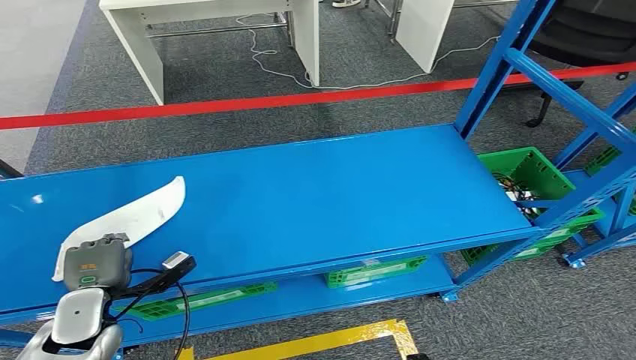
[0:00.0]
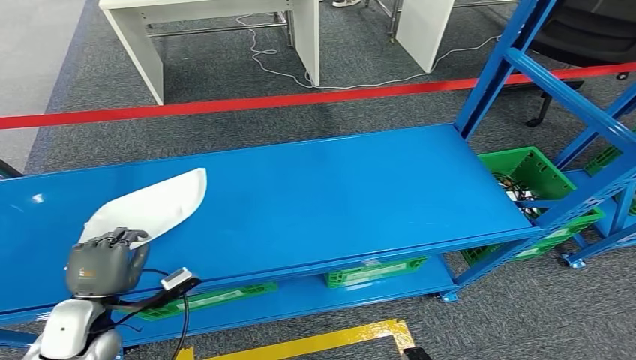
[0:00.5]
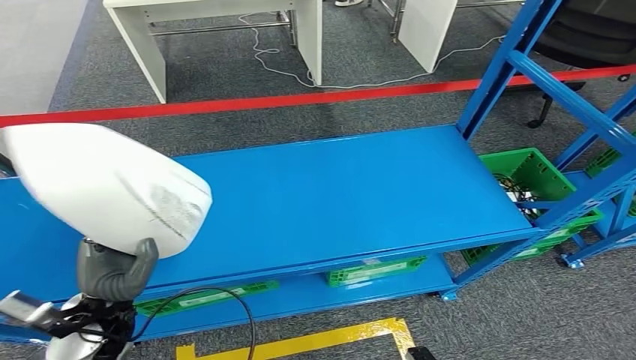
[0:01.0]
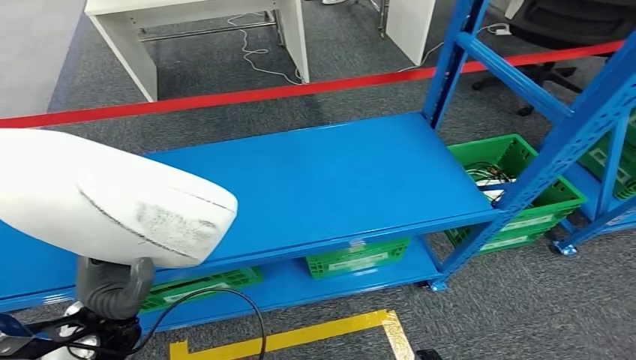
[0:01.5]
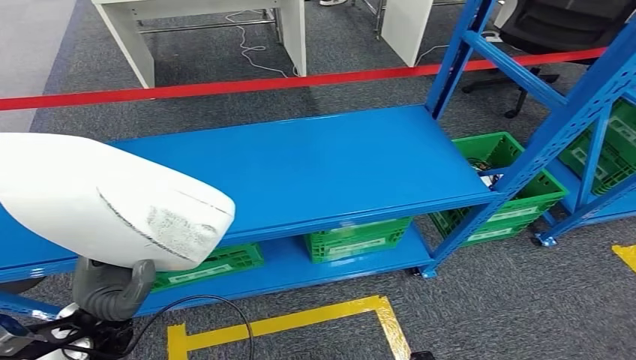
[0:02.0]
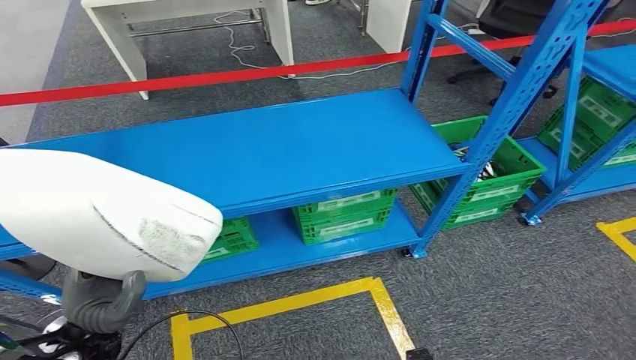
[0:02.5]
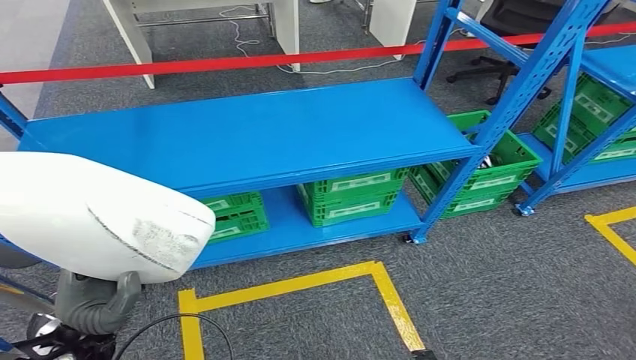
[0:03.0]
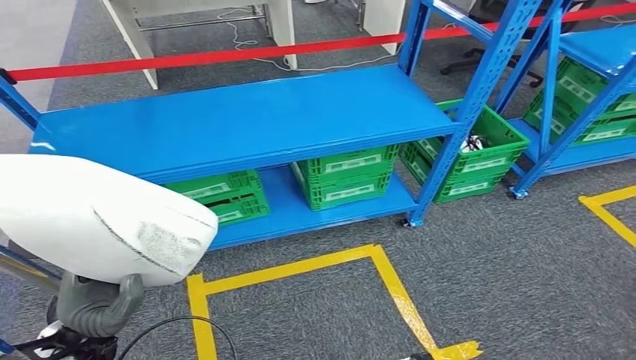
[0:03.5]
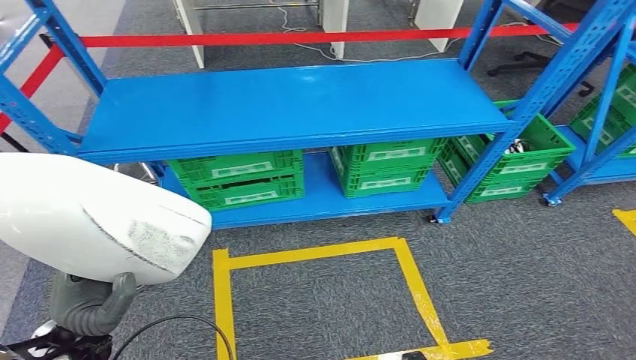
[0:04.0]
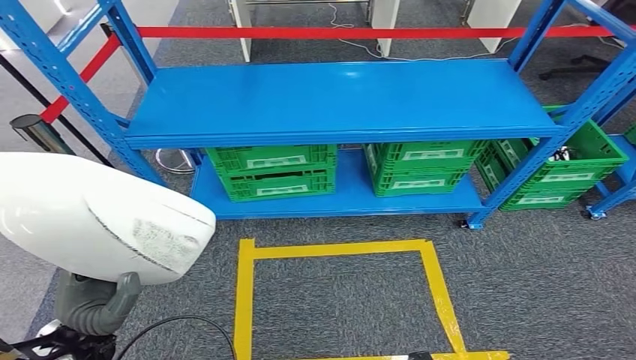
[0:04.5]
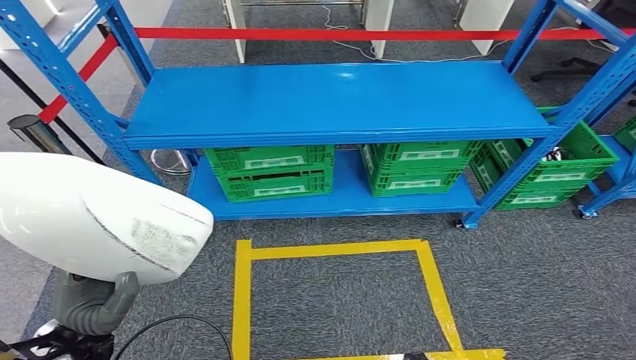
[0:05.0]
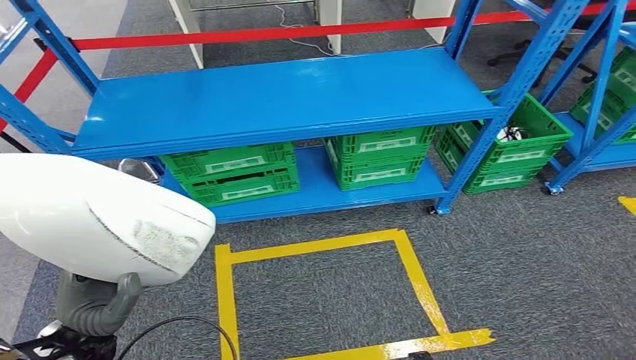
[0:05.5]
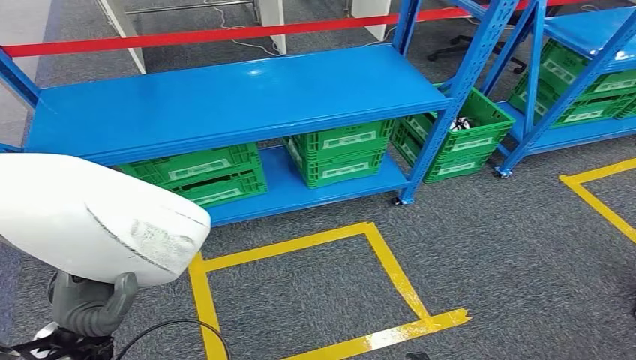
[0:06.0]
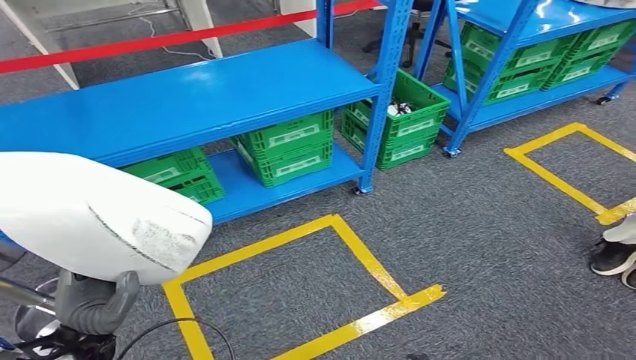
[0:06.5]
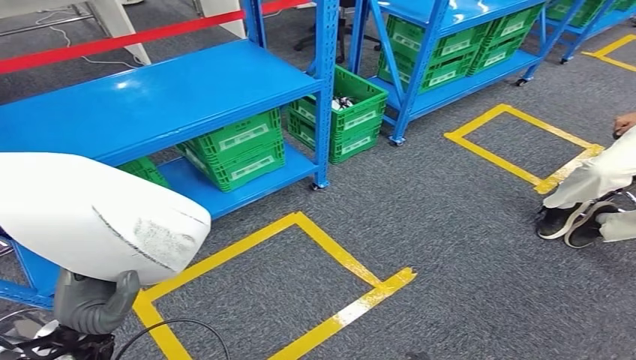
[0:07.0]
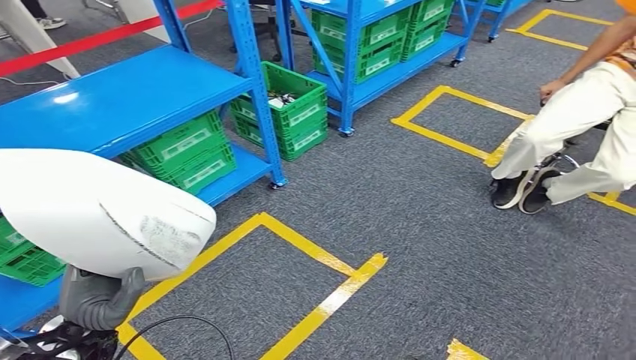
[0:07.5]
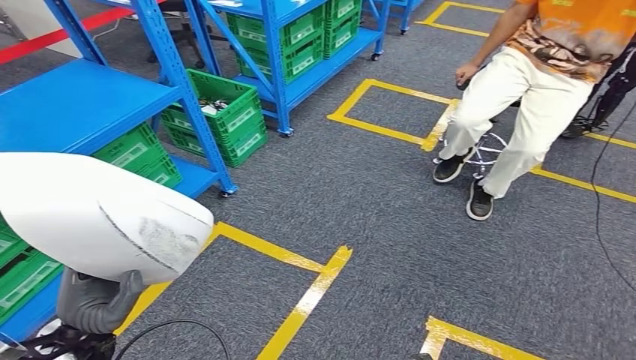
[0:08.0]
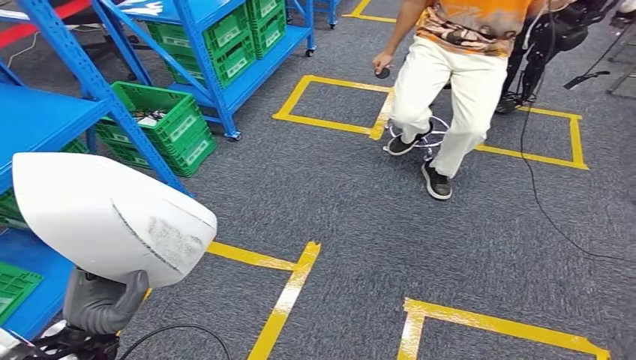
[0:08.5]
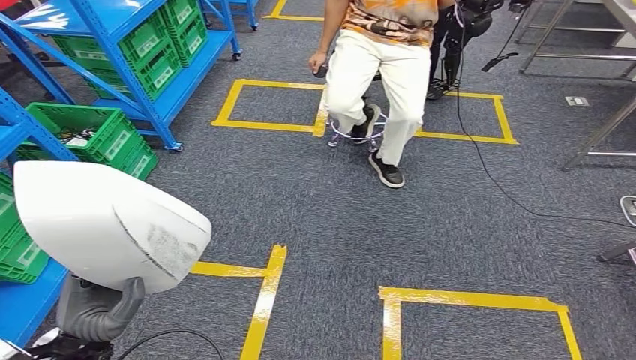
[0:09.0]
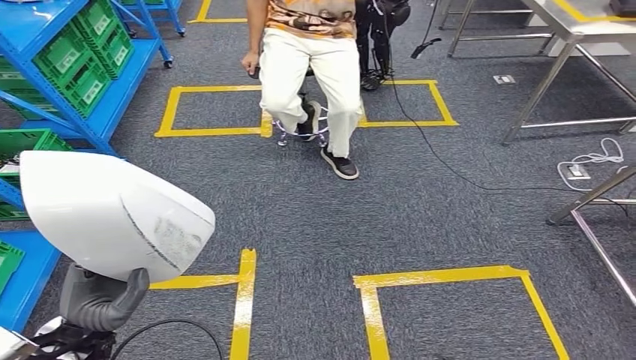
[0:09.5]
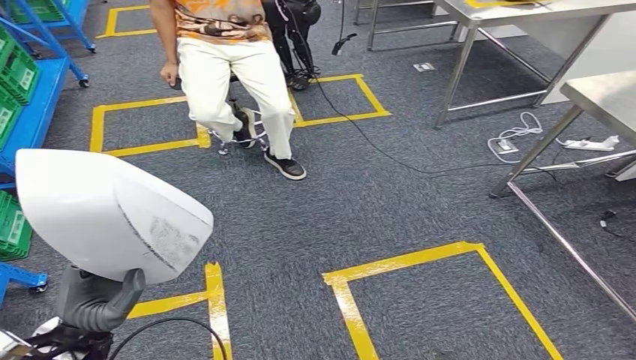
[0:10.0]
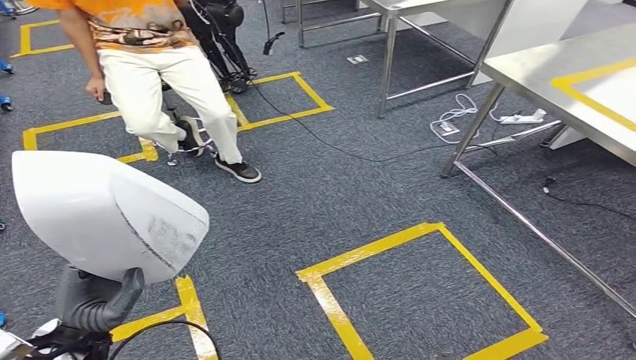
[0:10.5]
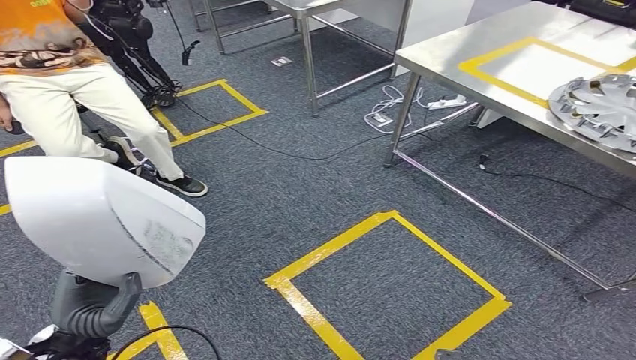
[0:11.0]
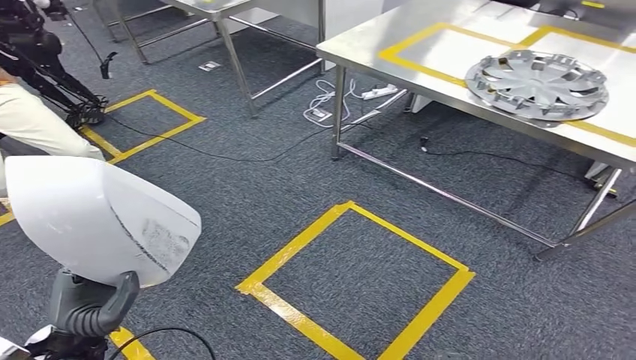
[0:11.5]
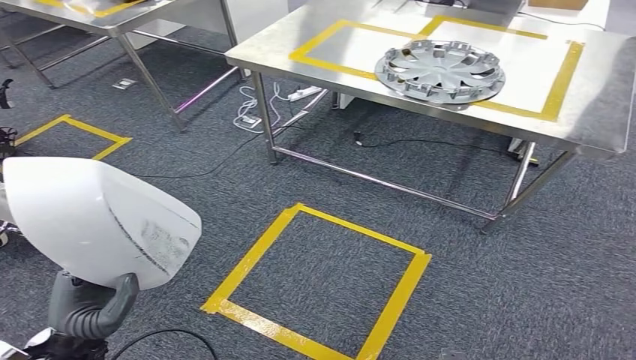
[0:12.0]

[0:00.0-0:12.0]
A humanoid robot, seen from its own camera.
Step, 0:00.0 to 0:03.0: Take small components from the rack.

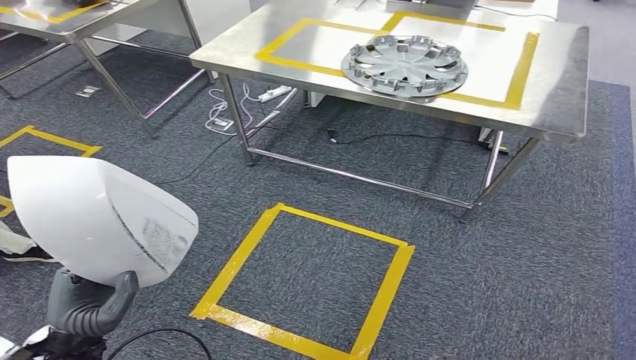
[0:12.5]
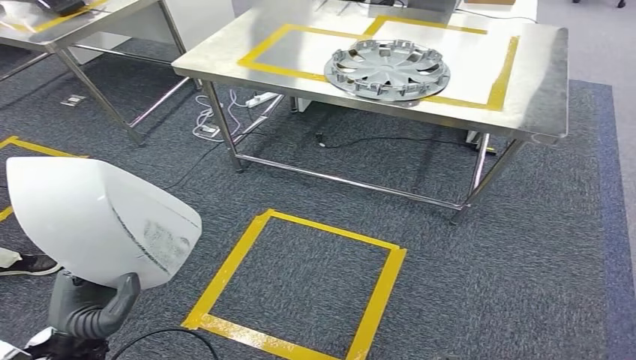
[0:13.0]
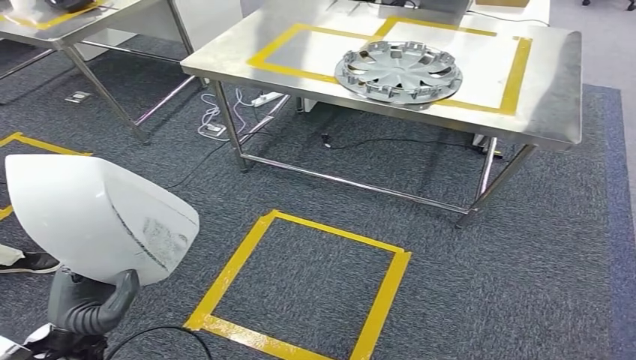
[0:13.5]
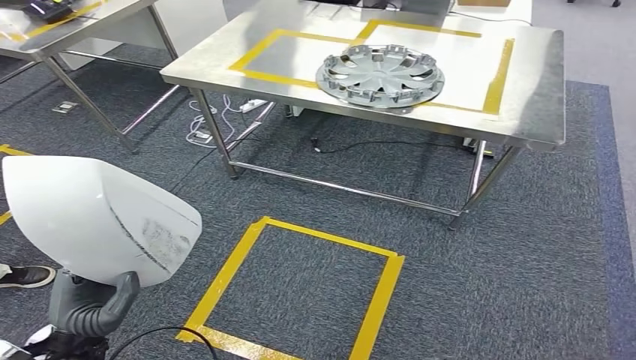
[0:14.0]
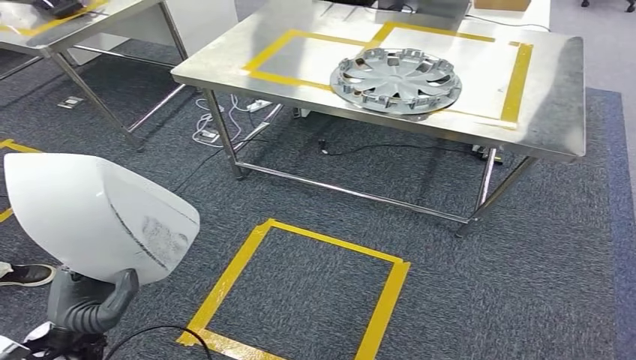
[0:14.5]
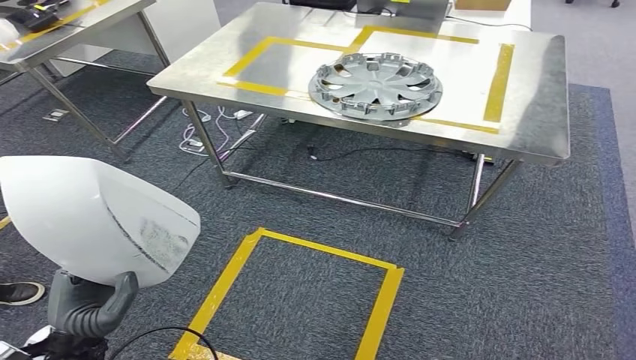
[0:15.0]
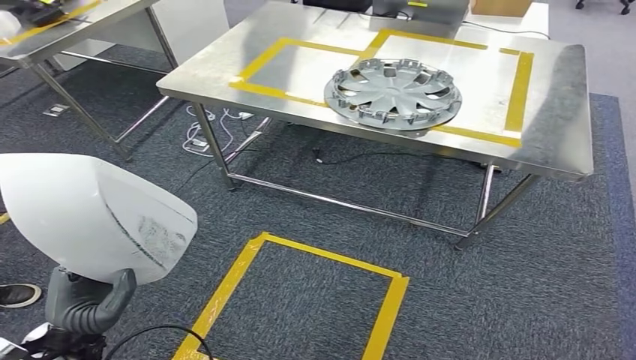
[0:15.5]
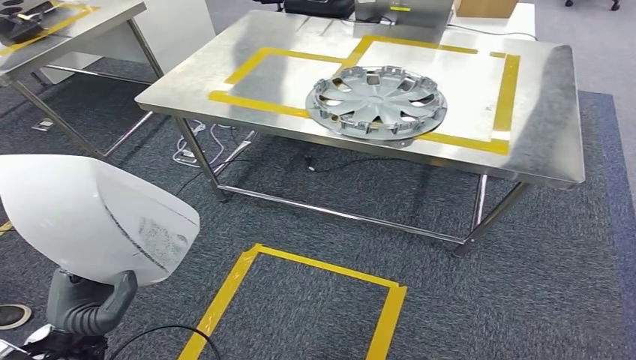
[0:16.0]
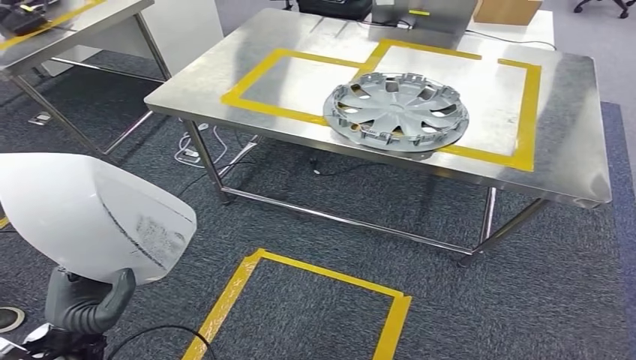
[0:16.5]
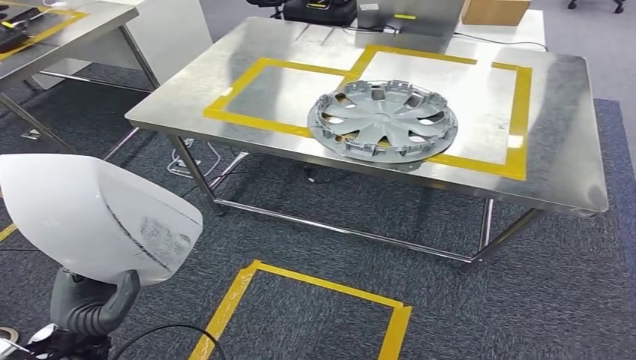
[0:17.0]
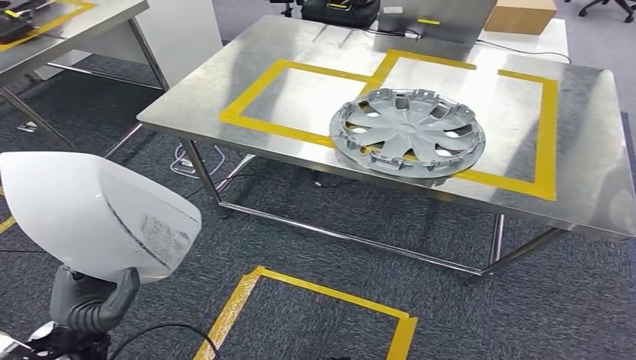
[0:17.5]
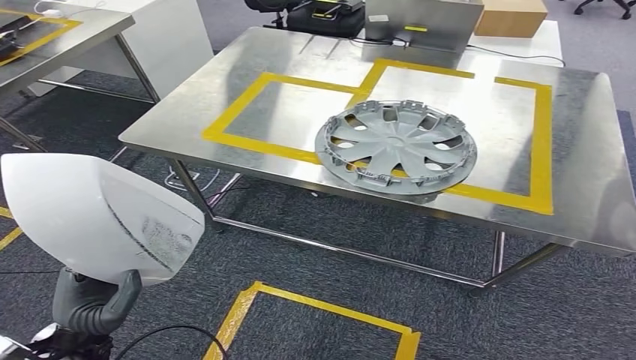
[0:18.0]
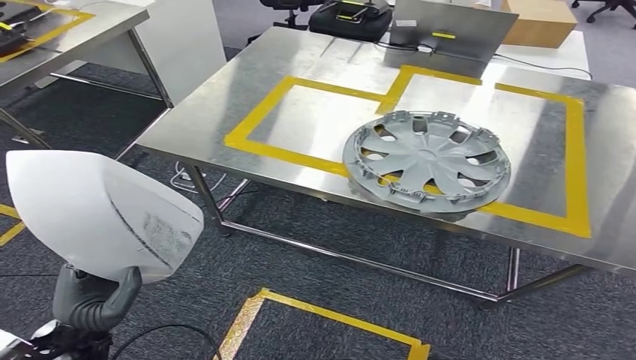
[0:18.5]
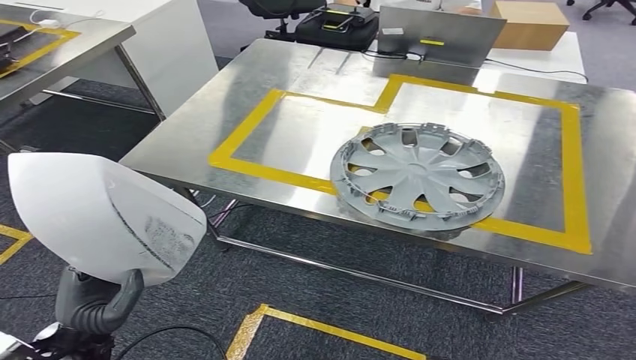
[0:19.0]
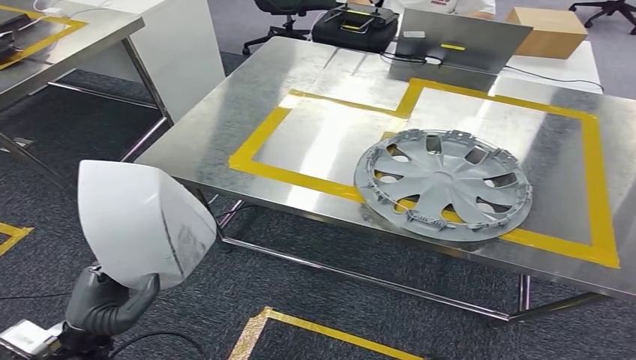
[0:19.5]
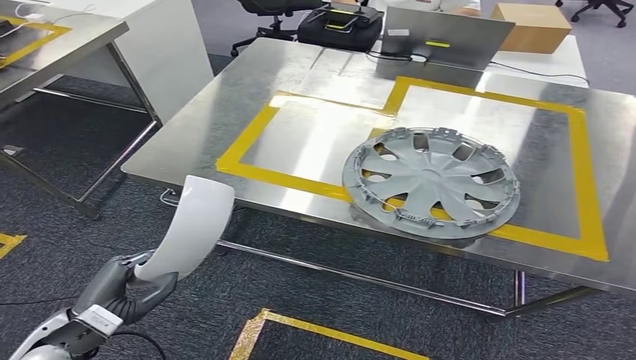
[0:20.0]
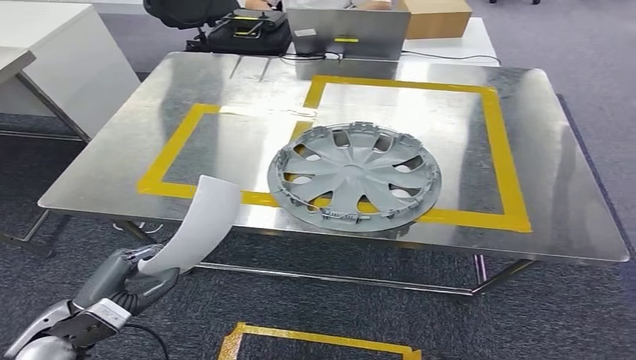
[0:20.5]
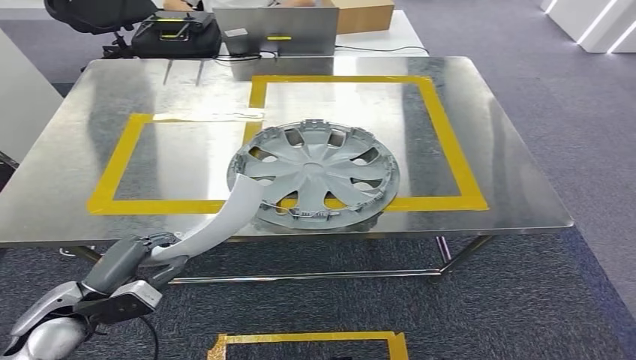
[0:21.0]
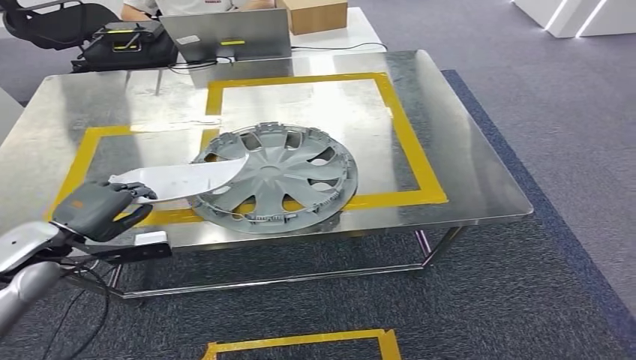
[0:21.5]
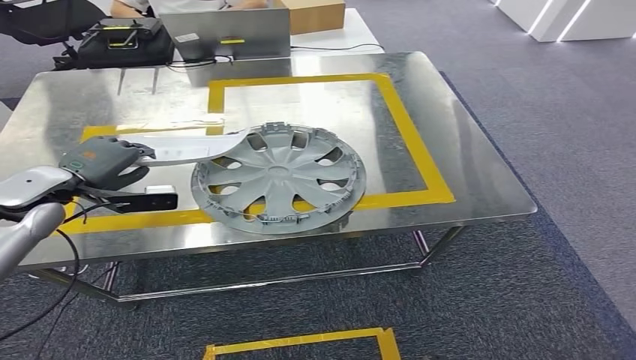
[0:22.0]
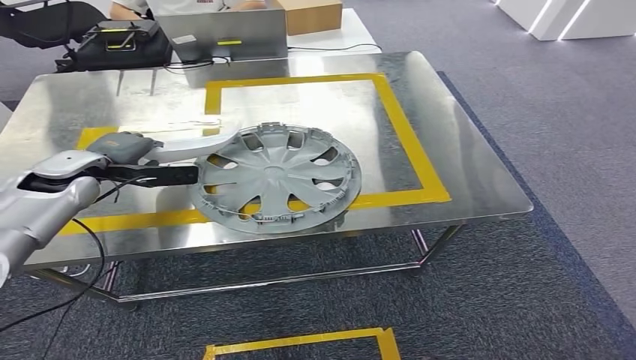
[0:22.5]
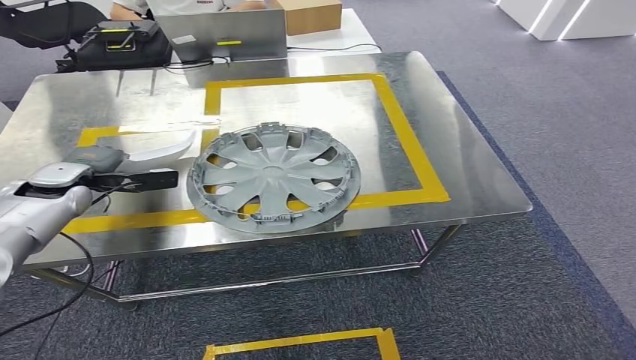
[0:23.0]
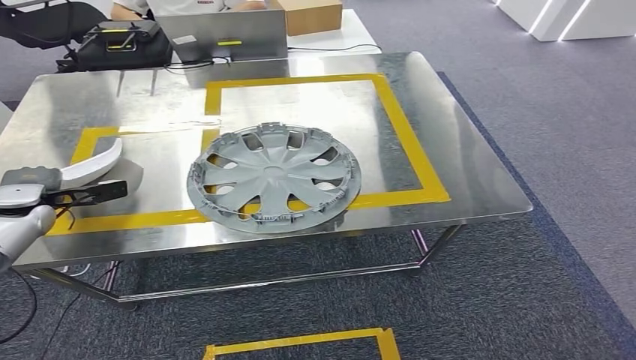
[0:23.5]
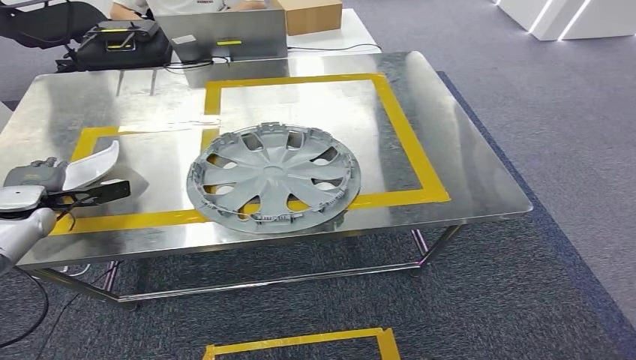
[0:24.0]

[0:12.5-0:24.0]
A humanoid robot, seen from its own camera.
Step, 0:12.5 to 0:15.5: Move the small parts to the workbench.
0:22.0 to 0:24.0: The left hand is displaced to the left and downward by about 10 cm.
